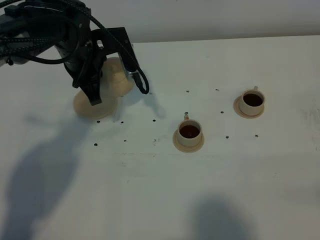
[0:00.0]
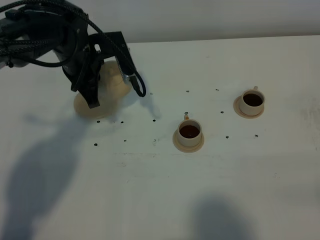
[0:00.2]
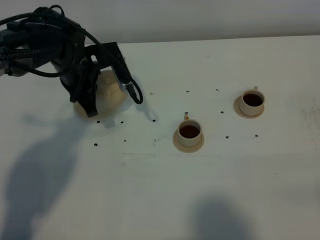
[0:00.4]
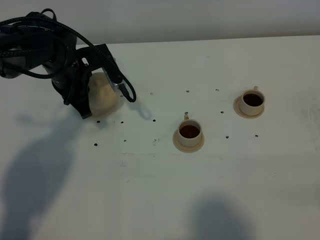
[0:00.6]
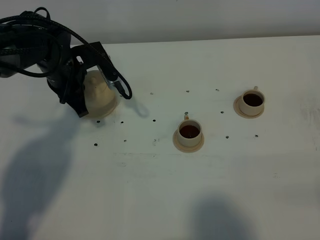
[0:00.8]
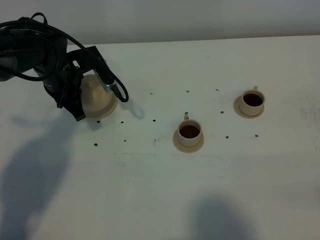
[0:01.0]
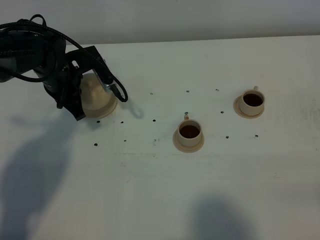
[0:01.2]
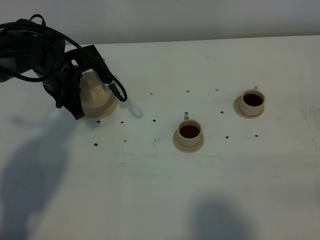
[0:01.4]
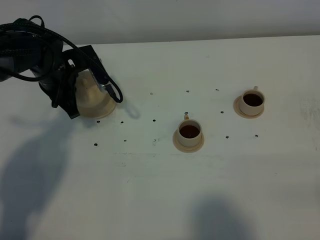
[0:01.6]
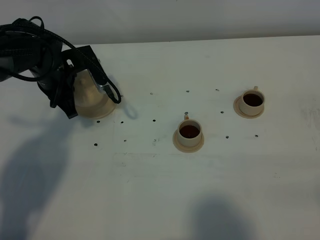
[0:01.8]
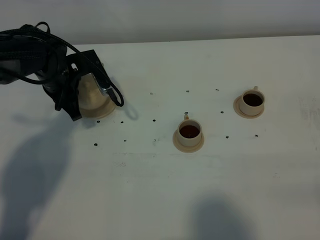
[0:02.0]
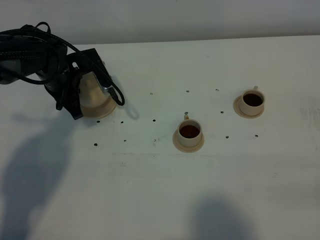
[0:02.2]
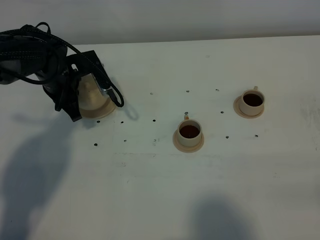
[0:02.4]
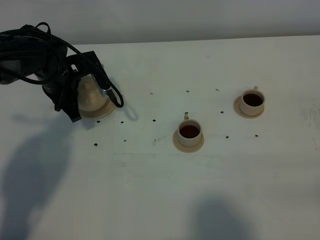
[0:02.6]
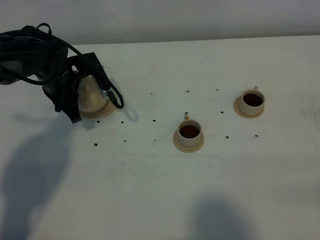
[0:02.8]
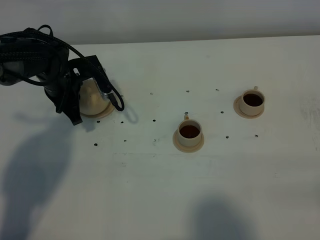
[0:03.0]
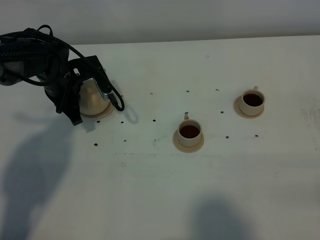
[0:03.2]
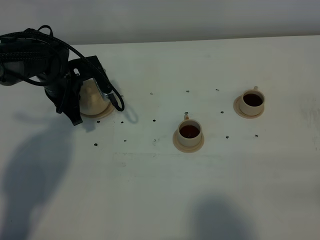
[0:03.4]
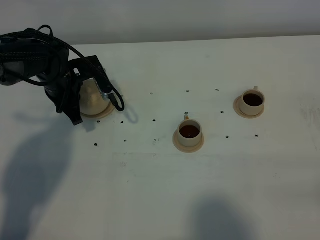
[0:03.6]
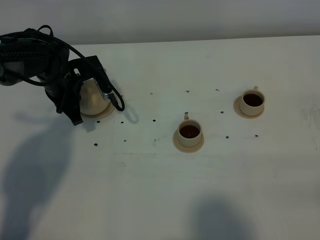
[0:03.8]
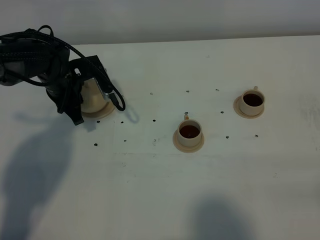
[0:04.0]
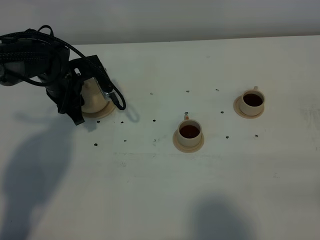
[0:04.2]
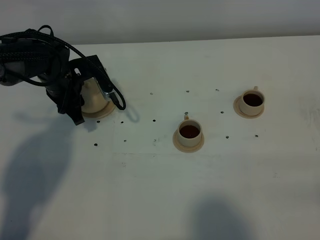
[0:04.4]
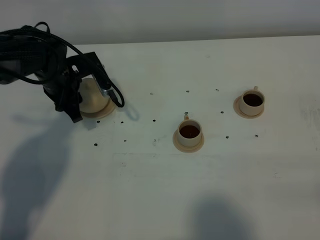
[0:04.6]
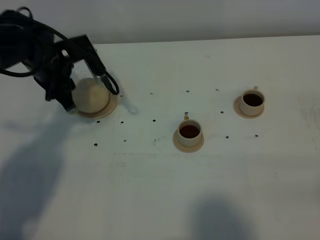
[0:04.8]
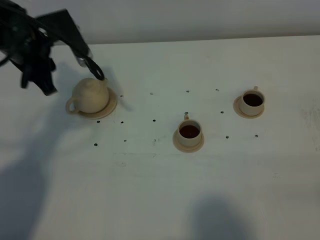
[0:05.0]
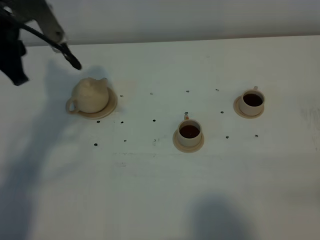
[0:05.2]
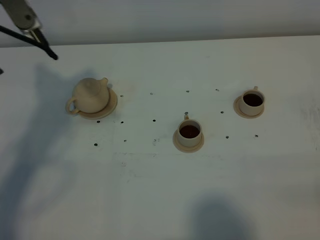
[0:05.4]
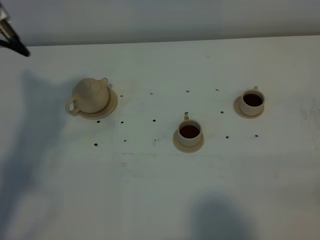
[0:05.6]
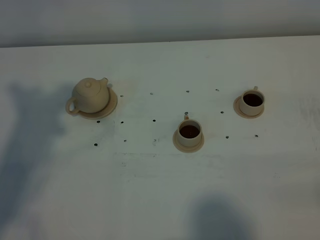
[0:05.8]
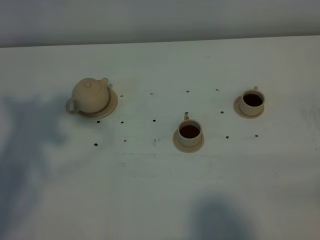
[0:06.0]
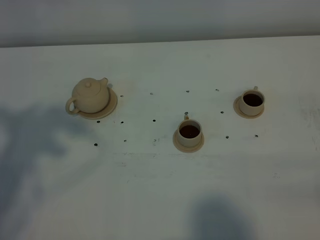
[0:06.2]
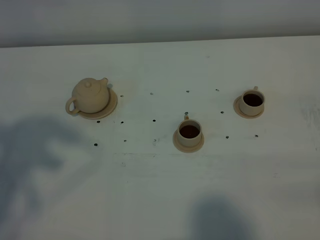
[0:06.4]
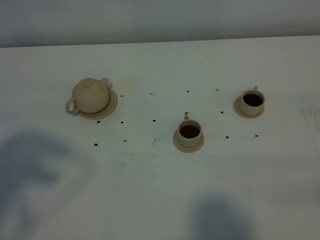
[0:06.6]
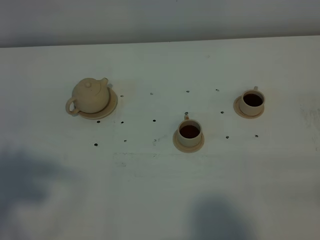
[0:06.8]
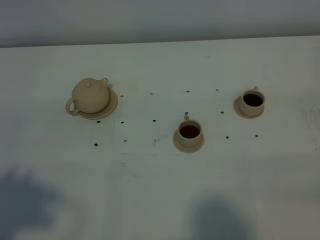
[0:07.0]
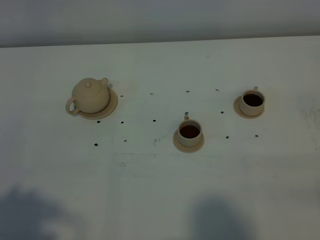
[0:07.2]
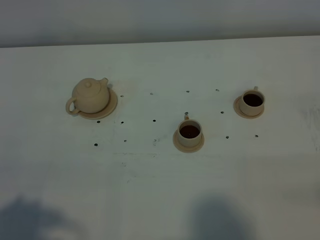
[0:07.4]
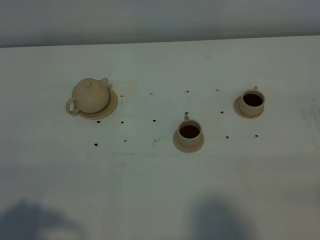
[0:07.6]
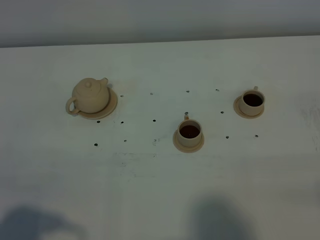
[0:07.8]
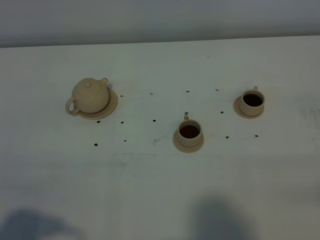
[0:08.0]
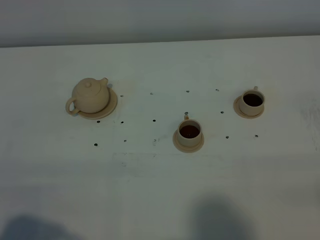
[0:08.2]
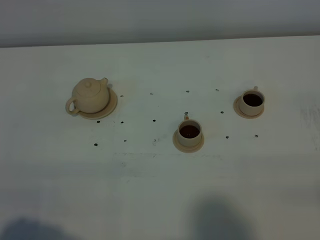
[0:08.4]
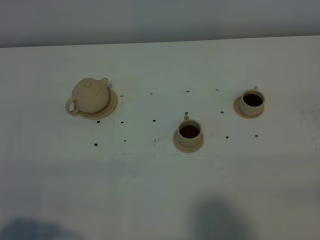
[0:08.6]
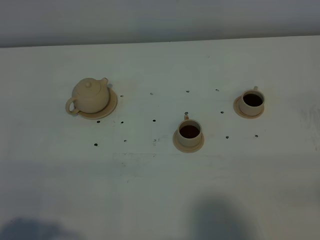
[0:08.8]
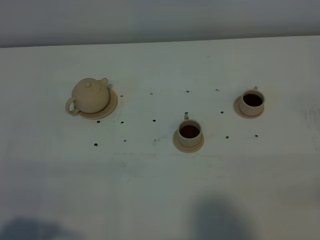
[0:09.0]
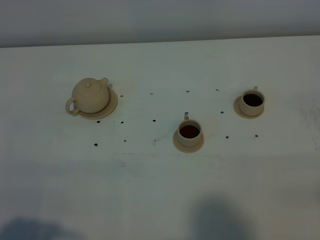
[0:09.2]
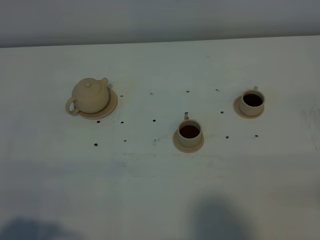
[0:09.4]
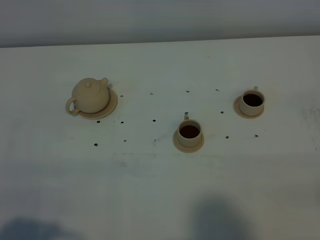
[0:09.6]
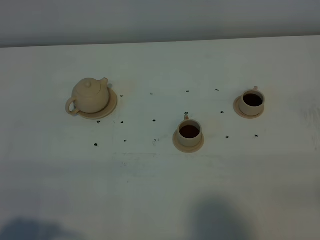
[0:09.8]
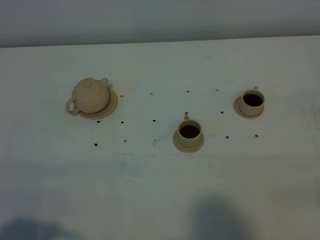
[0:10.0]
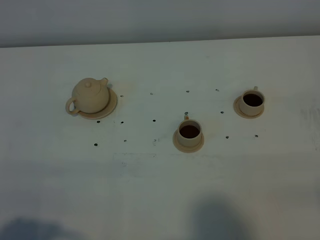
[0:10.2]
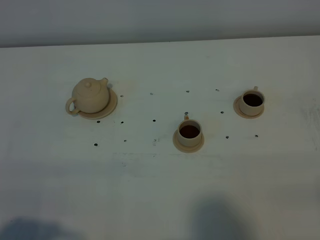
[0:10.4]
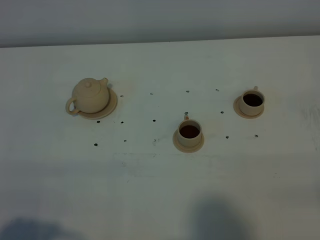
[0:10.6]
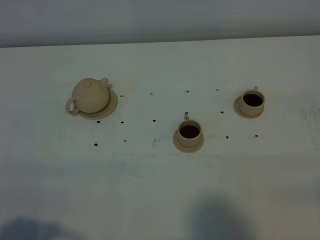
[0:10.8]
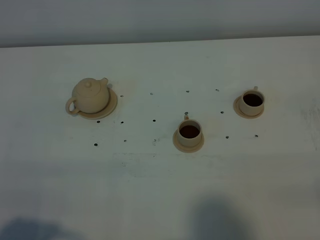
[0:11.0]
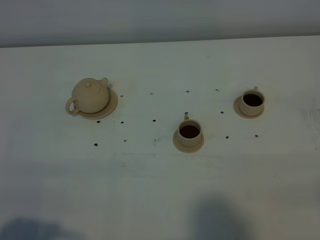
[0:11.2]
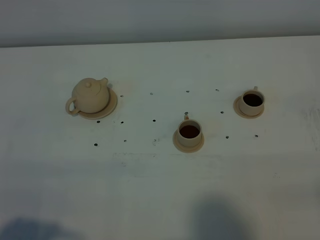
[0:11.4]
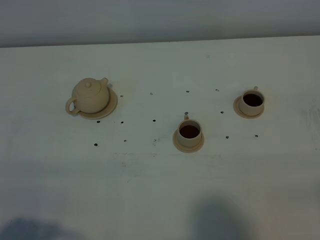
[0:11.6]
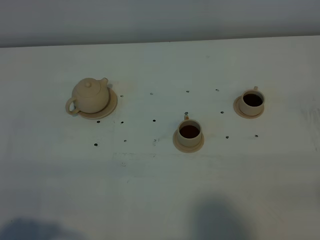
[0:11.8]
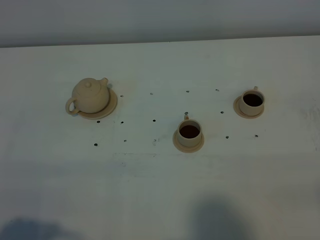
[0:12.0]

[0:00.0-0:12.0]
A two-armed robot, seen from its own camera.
Task of the whole recording: grasp the brown teapot and pour the tea into the two brown teacups one by one, put the brown teapot back in its original place.
0:00.0 to 0:01.6: The left gripper heads to the left and downward, covering about 10 cm.
0:01.6 to 0:03.0: There are only small adjustments of the grippers.
0:03.0 to 0:04.4: The left gripper opens up.
0:04.4 to 0:06.0: The left gripper goes approximately 40 cm upward and backward.
0:06.0 to 0:07.6: The left gripper goes roughly 20 cm downward and backward.
0:09.0 to 0:12.0: Neither gripper changes place.

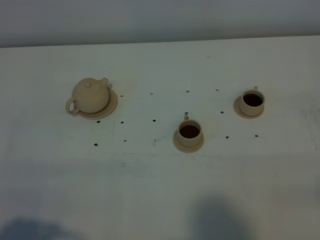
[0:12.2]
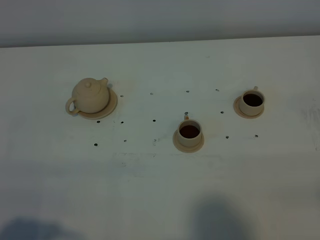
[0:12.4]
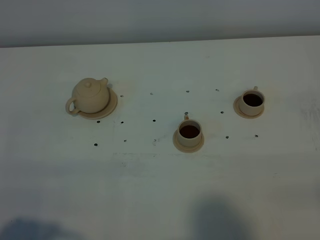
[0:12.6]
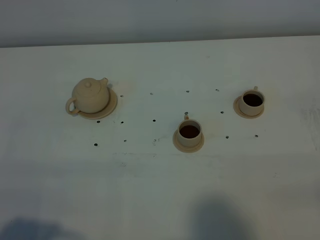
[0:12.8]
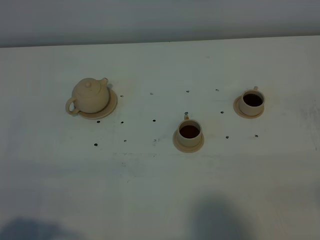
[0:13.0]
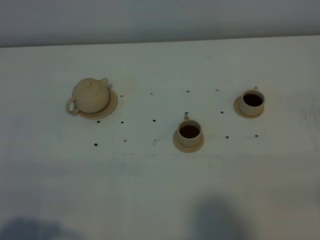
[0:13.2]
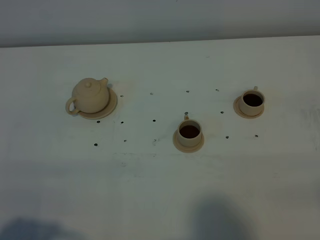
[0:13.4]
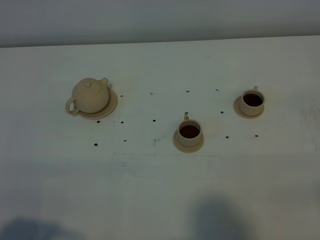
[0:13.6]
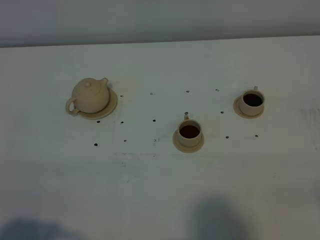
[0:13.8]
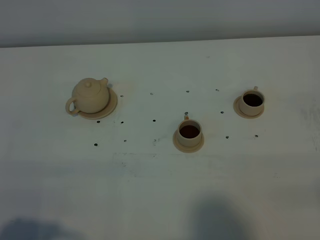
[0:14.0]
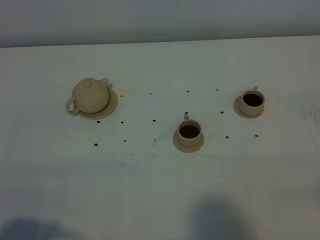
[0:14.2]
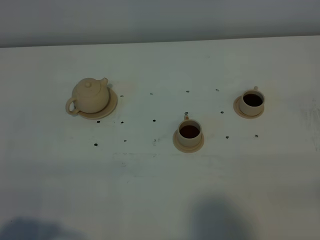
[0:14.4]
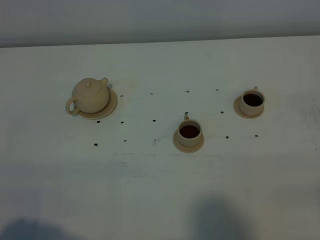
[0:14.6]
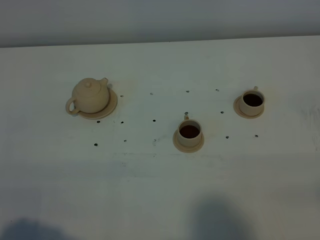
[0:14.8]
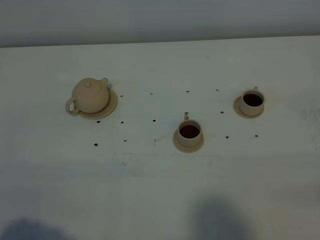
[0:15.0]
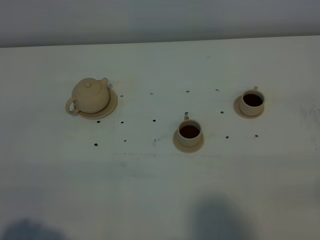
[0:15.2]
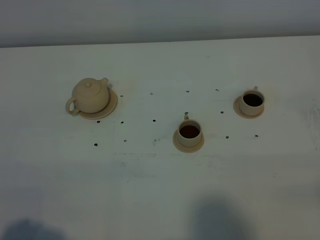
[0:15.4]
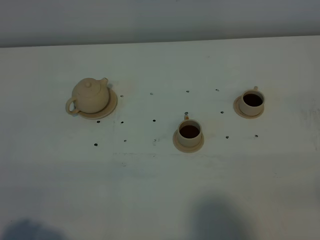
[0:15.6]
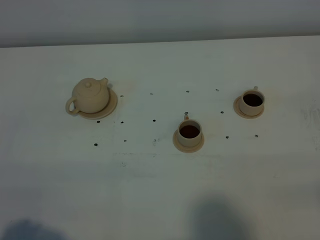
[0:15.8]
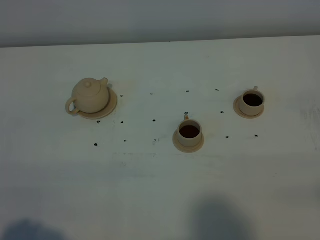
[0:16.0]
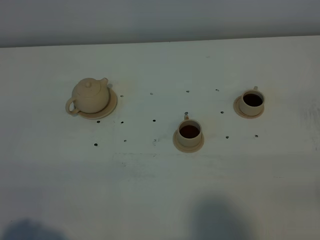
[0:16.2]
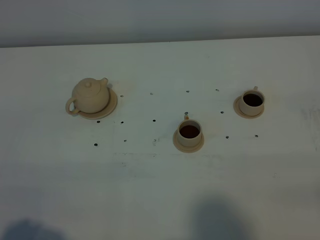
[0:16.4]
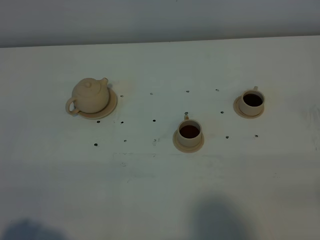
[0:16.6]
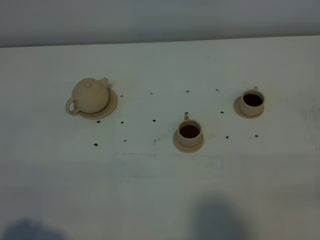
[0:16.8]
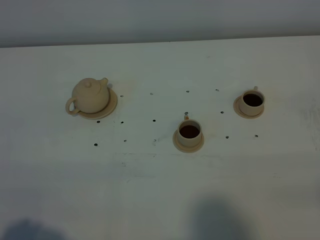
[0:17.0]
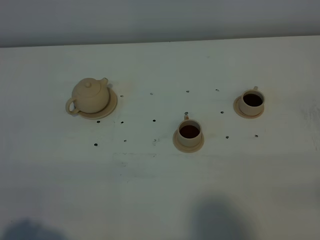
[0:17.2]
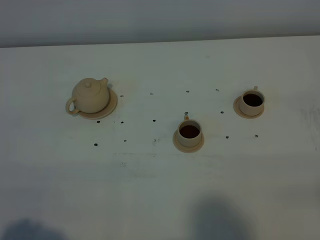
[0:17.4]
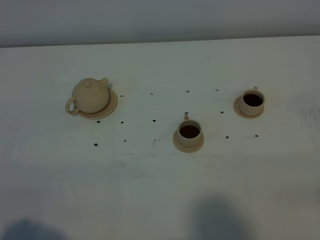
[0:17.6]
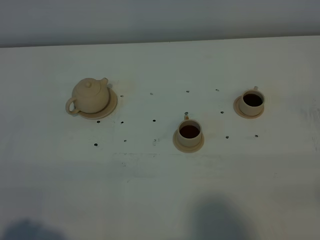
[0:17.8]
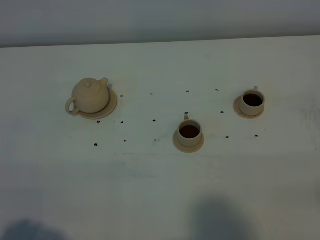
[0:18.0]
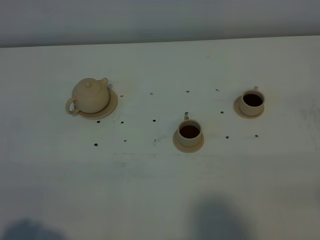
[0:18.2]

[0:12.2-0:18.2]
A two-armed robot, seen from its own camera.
Task of the whole recording: grasp the brown teapot and pour the tea into the two brown teacups one by one, put the brown teapot back in its original place.
0:12.2 to 0:13.8: The two grippers keep their place.
0:15.2 to 0:18.2: Neither gripper changes place.
